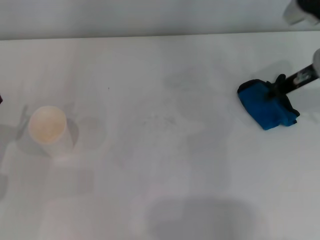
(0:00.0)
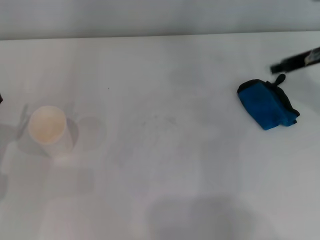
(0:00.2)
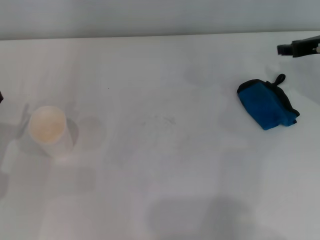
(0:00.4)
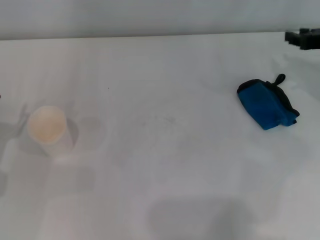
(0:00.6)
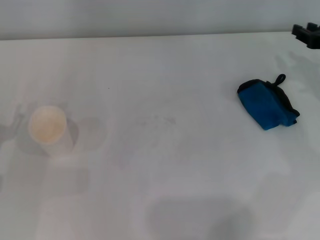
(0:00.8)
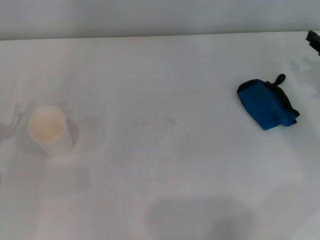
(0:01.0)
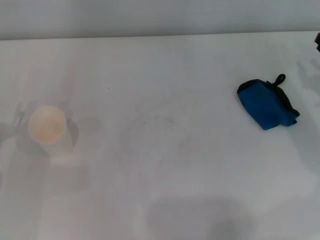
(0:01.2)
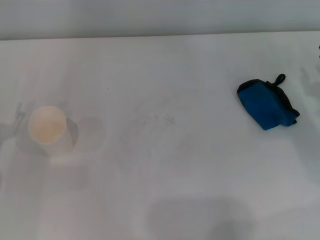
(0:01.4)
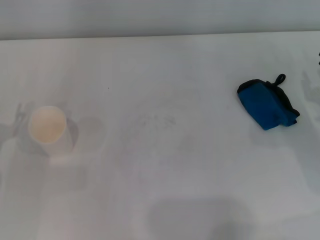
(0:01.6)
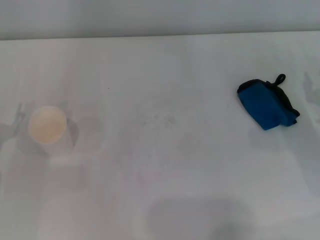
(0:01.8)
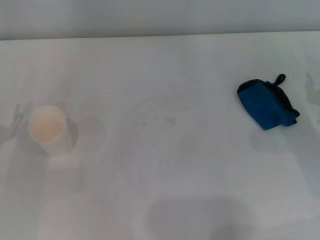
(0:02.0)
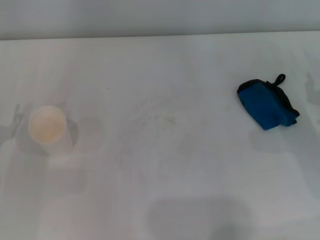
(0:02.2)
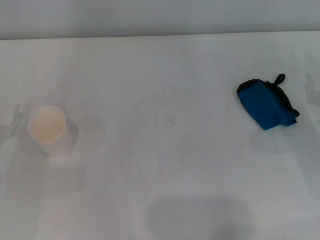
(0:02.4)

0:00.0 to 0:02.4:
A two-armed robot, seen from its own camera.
0:00.0 to 0:01.2: The right gripper is displaced to the right, downward and backward by approximately 15 cm.
